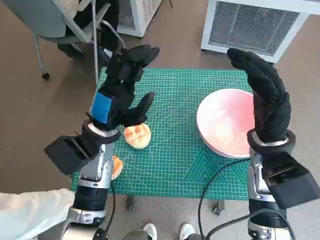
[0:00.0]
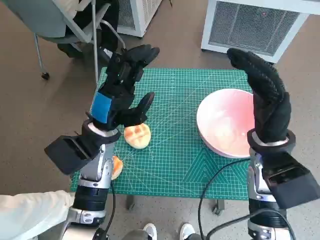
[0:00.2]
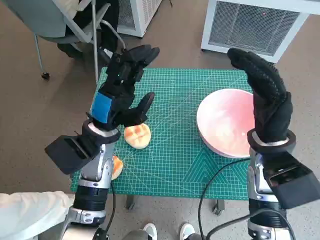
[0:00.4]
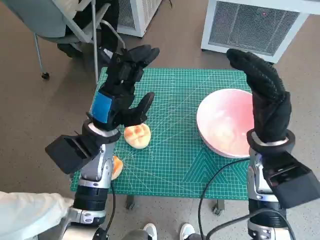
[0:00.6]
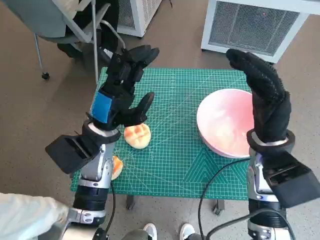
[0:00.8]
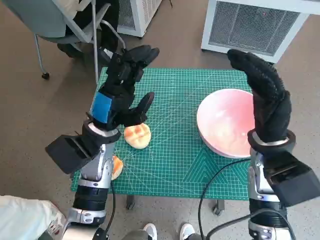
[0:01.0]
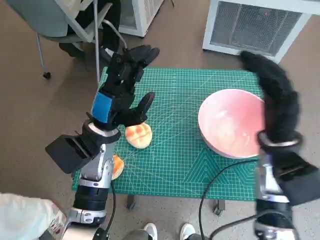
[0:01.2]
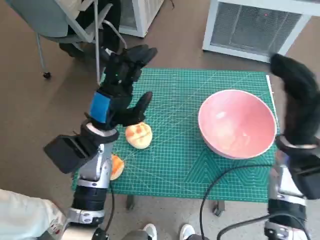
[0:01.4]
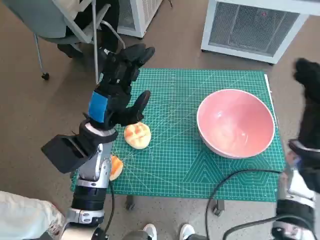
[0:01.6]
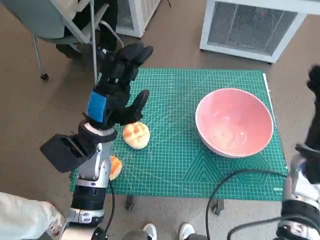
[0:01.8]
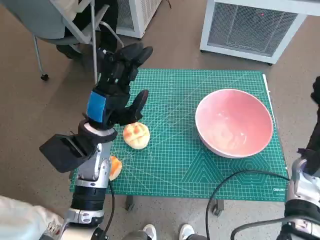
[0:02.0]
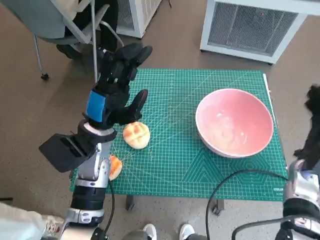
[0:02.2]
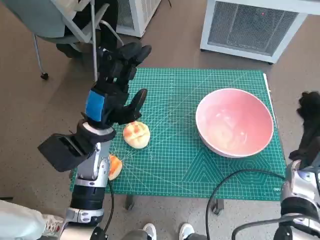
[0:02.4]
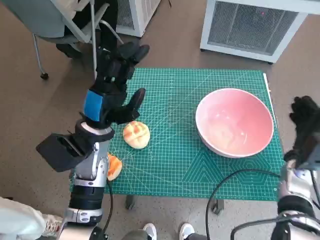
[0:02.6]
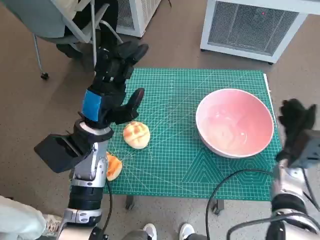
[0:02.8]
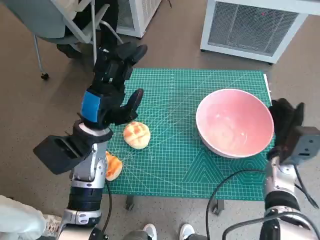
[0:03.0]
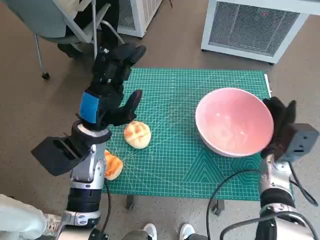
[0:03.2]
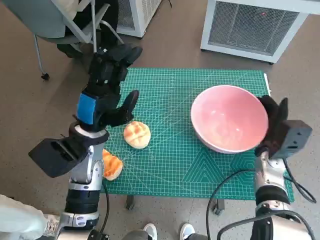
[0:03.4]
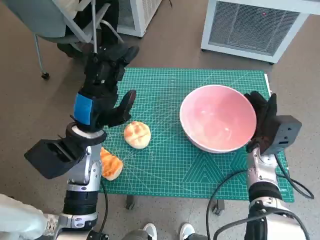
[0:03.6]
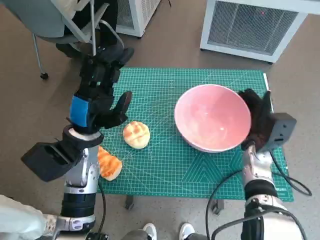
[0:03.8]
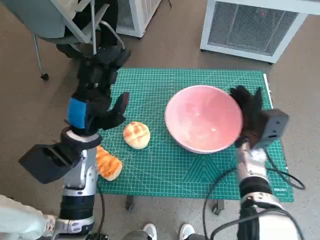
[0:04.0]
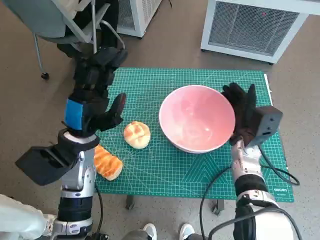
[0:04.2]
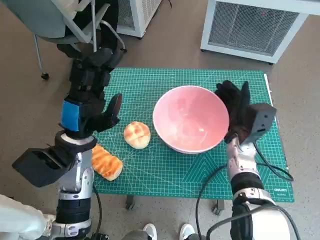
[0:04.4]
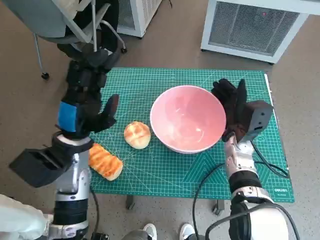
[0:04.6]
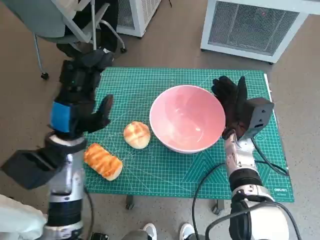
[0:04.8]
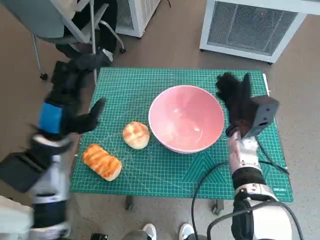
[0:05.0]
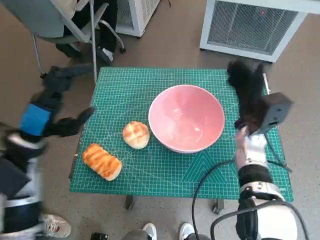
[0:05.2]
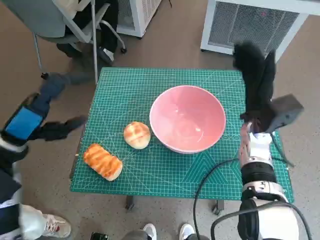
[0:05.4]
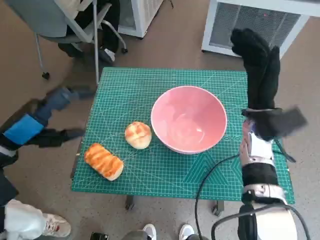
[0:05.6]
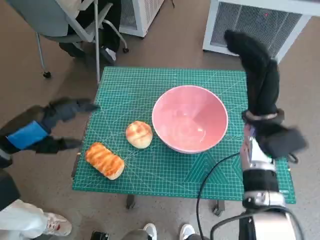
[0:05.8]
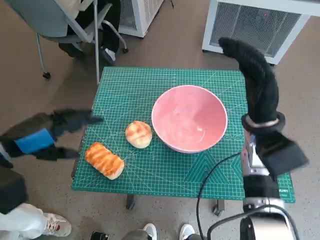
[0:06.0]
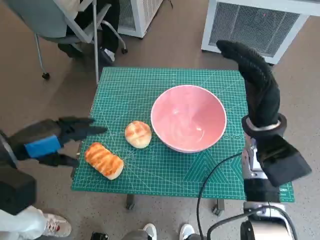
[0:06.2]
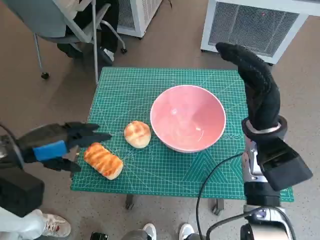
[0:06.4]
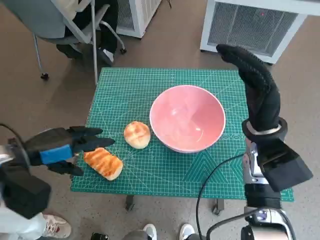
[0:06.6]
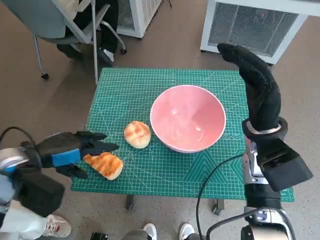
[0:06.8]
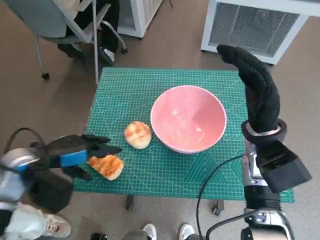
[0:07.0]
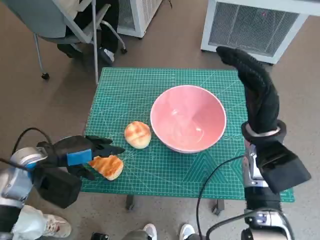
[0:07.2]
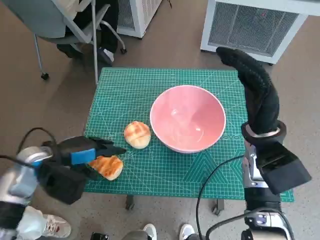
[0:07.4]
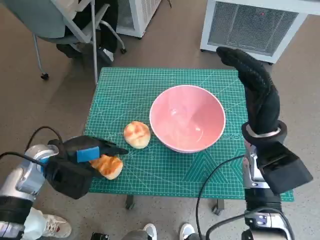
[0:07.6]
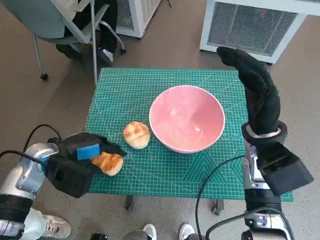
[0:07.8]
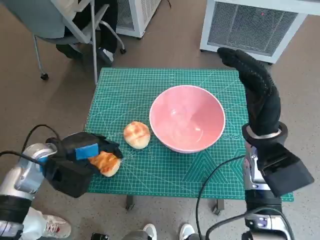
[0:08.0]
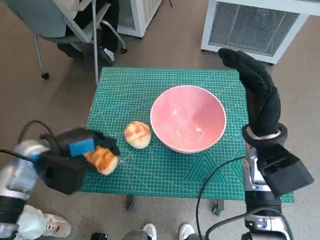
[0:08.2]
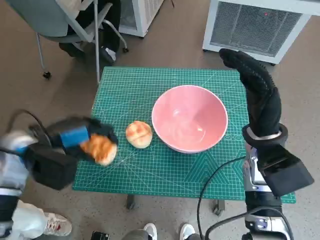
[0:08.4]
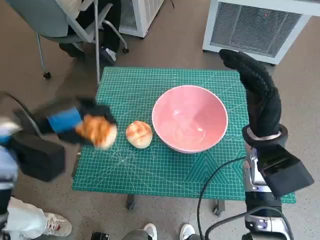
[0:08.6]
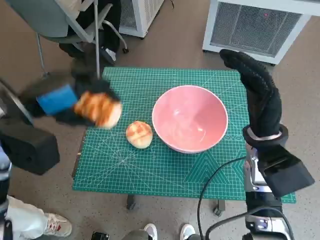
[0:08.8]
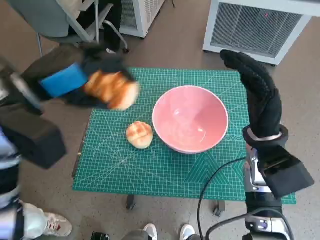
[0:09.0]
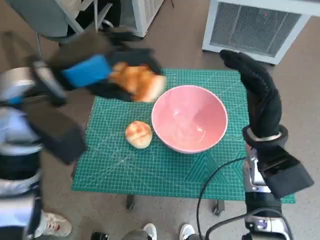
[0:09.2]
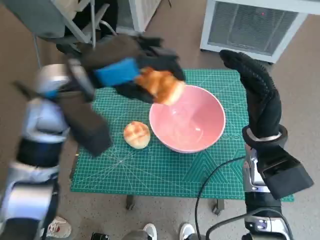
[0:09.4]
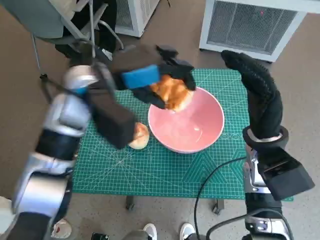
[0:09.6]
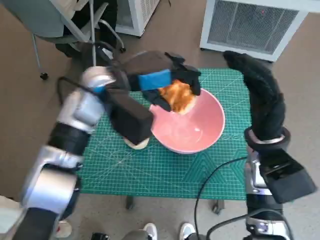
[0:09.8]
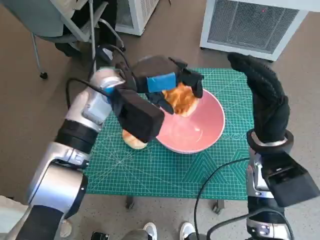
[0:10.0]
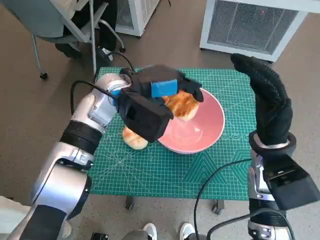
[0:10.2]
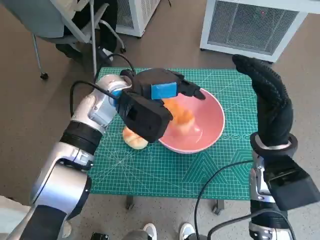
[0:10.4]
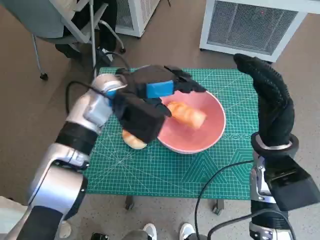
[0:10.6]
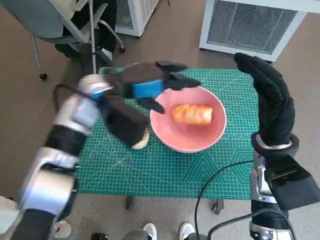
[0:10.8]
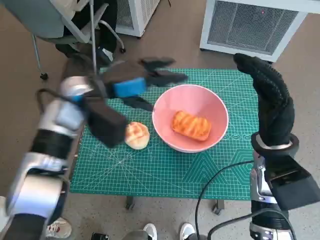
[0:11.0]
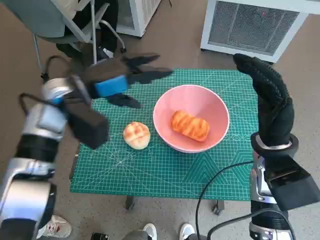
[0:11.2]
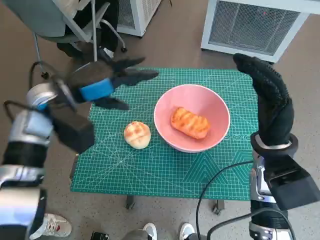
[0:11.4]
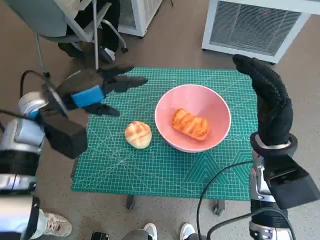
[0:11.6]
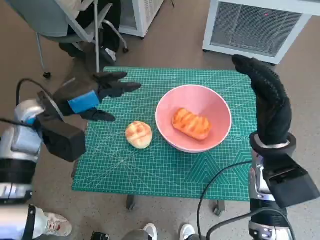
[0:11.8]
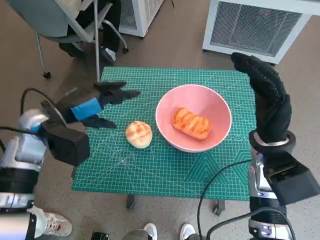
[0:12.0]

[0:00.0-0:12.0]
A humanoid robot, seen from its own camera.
Task of the whole recording: Push the bowl to the center of the table and put the bread into the bowl.
Step, 0:00.0 to 0:05.0: Move the pink bowl to the center of table with right hand.
Step, 0:05.2 to 0:07.8: Grasp the long bread with left hand.
Step, 0:08.0 to 0:10.6: Place the long bread in pink bowl with left hand.
0:01.6 to 0:03.0: The right hand moves downward, roughly 10 cm.
0:03.0 to 0:04.4: The right hand shifts about 10 cm to the left.
0:04.4 to 0:06.0: The left hand goes approximately 15 cm to the left and upward. The right hand heads upward, covering about 10 cm.
0:06.0 to 0:07.6: The left hand is displaced downward by roughly 10 cm.
0:07.6 to 0:09.0: The left hand is displaced upward by some 15 cm.
0:09.0 to 0:10.4: The left hand travels to the right, forward and downward by approximately 15 cm.
0:10.4 to 0:12.0: The left hand goes some 15 cm to the left and backward.

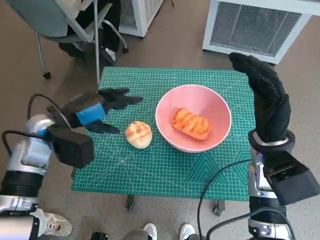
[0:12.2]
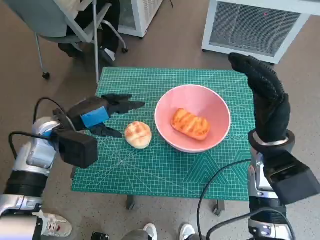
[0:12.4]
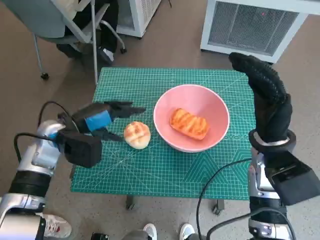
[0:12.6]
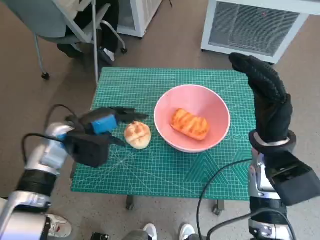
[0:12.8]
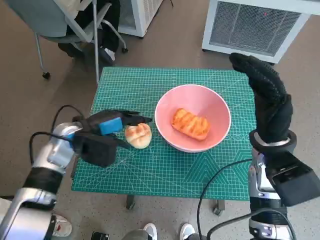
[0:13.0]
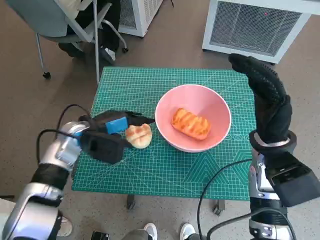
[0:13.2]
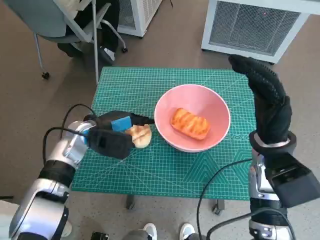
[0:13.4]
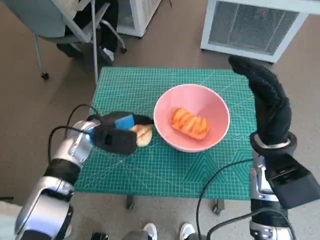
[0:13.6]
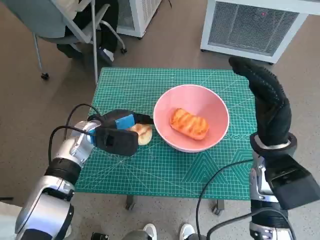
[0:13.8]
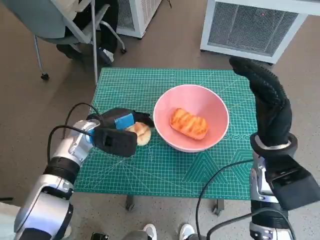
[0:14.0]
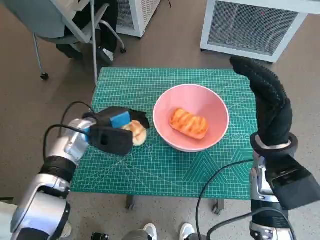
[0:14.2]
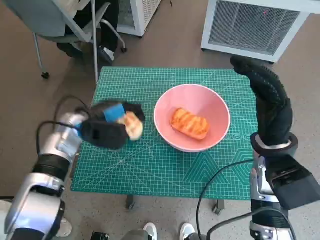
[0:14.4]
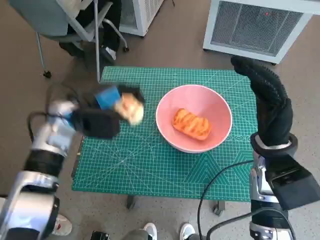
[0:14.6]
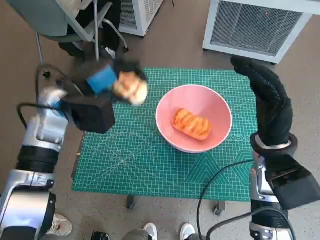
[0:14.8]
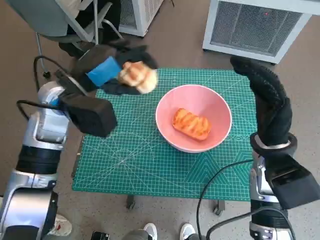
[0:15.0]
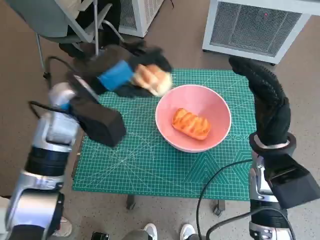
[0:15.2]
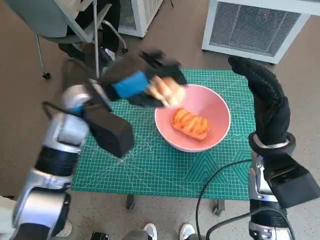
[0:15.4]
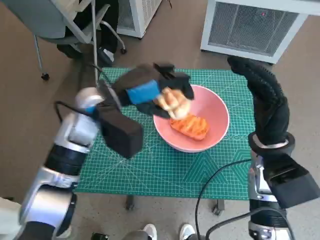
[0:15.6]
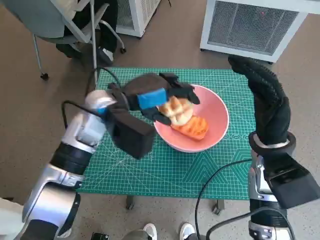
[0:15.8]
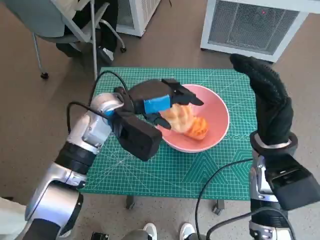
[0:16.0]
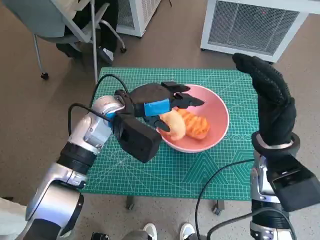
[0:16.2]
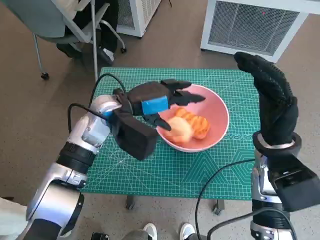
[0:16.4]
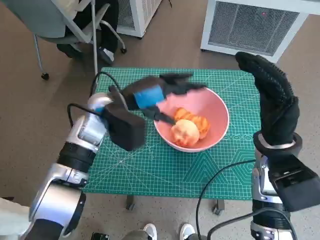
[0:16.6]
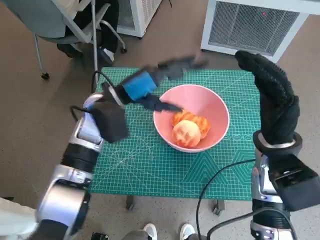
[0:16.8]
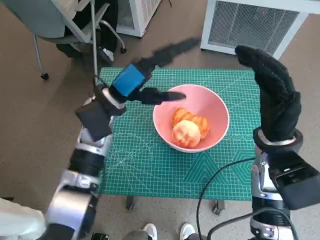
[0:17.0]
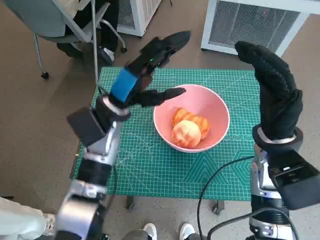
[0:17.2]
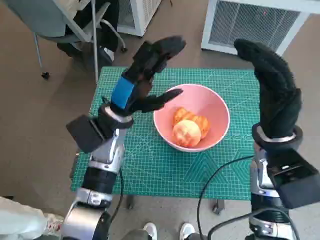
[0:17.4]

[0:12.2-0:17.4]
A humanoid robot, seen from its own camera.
Task of the whole recording: Push the bowl to the center of the table and put the bread into the bowl.
Step, 0:12.2 to 0:13.8: Grasp the round bread with left hand.
Step, 0:14.0 to 0:16.6: Place the round bread in pink bowl with left hand.
0:12.2 to 0:14.0: The left hand is displaced downward by approximately 5 cm.
0:14.0 to 0:15.6: The left hand goes about 15 cm upward and to the right.
0:15.6 to 0:17.4: The left hand moves downward, about 5 cm.

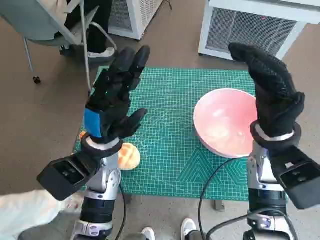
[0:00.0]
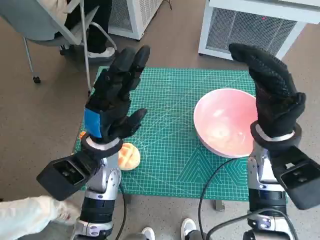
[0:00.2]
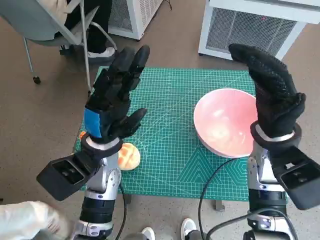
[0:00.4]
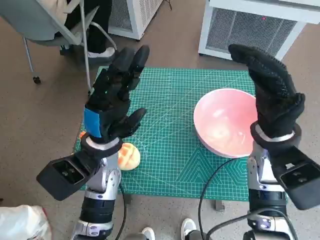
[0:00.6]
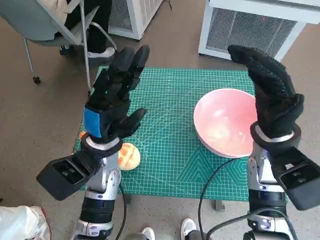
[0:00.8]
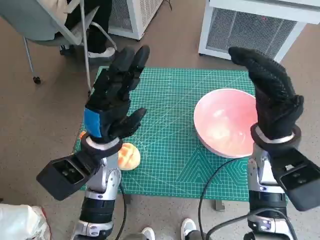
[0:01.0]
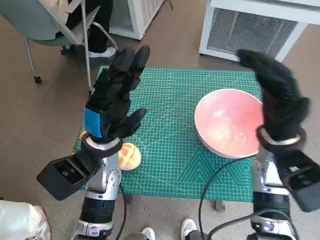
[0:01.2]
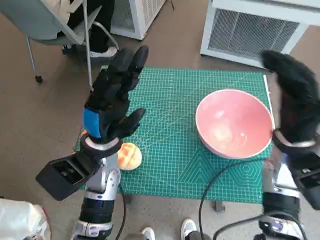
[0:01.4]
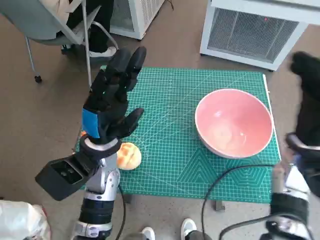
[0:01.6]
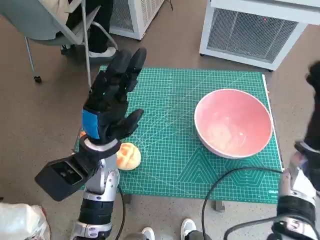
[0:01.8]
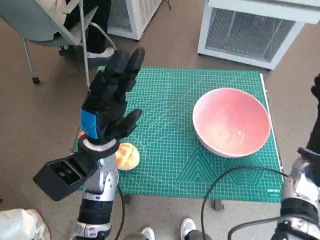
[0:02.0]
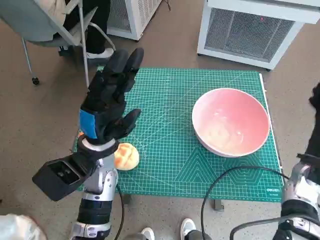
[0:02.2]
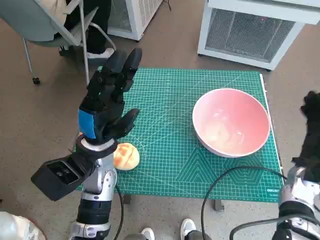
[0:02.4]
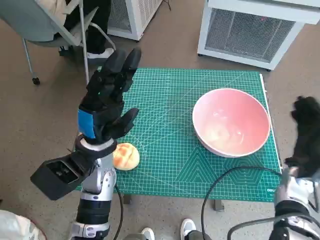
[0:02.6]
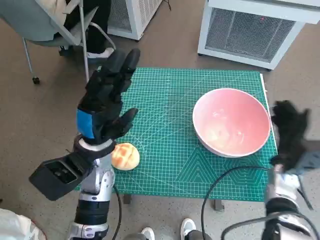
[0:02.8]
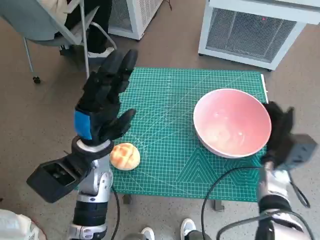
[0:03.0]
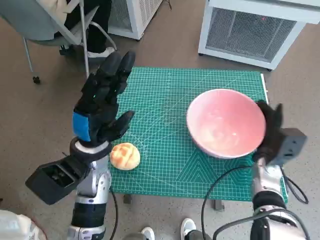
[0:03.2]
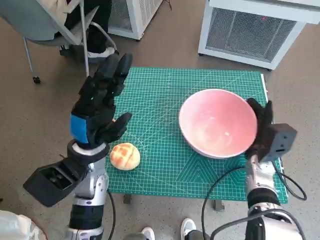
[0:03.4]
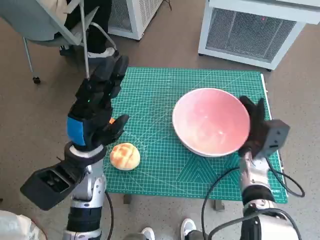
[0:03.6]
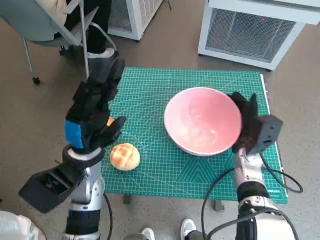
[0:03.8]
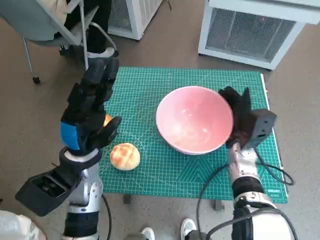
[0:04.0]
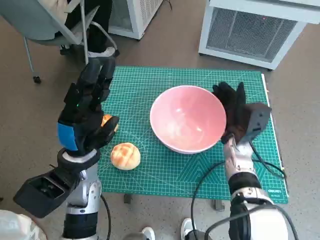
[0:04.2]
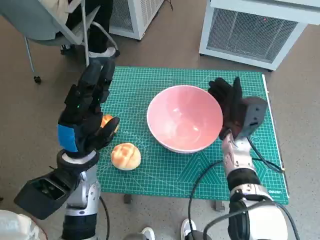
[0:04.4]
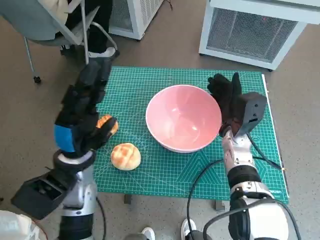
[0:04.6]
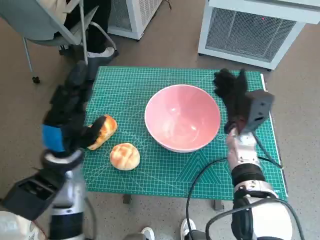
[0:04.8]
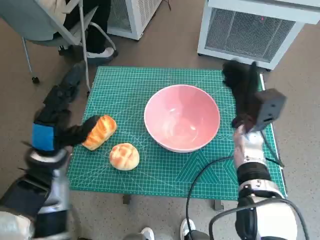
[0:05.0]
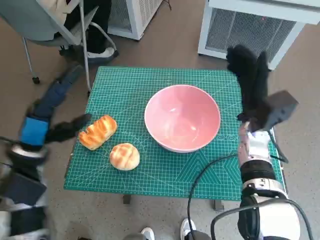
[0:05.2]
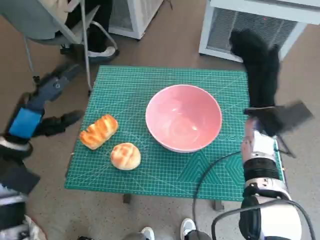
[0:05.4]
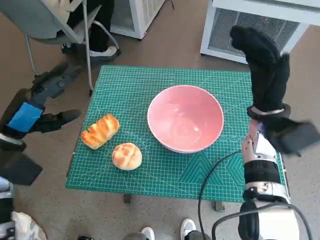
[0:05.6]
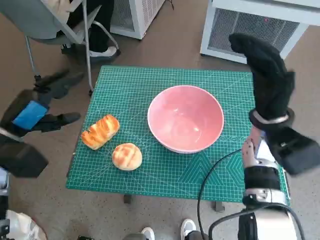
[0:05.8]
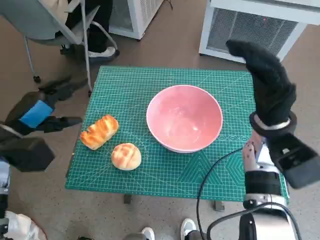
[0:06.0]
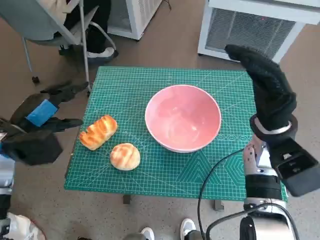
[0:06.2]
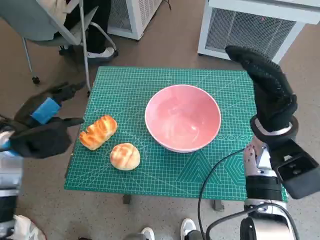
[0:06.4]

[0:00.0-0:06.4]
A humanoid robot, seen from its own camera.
Task of the whole recording: Push the bowl to the center of the table and put the bread into the bowl.
Step, 0:00.0 to 0:04.8: Move the pink bowl to the center of table with right hand.
0:01.6 to 0:03.2: The right hand heads downward, covering roughly 10 cm.
0:03.2 to 0:04.8: The right hand travels to the left and upward by roughly 10 cm.
0:04.8 to 0:06.4: The left hand moves to the left, roughly 10 cm; the right hand goes roughly 10 cm upward.
